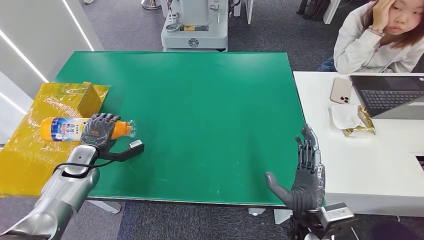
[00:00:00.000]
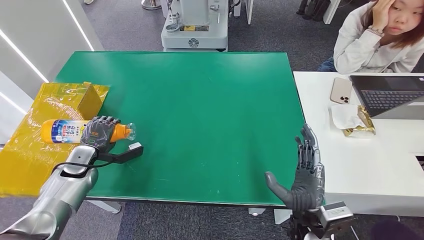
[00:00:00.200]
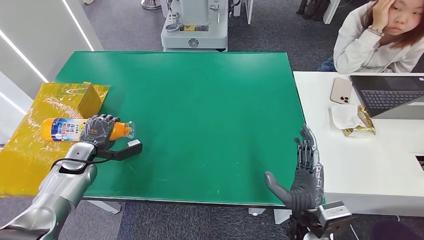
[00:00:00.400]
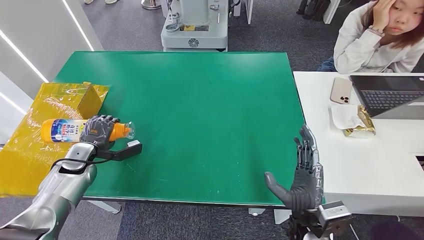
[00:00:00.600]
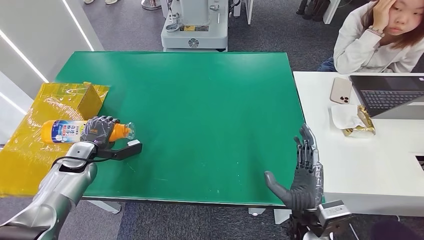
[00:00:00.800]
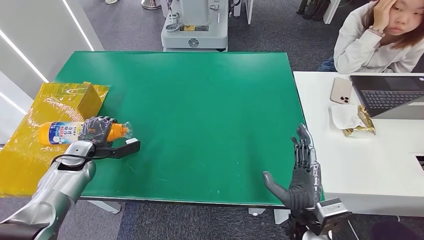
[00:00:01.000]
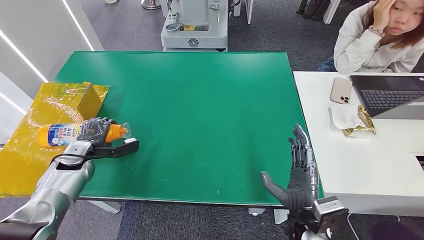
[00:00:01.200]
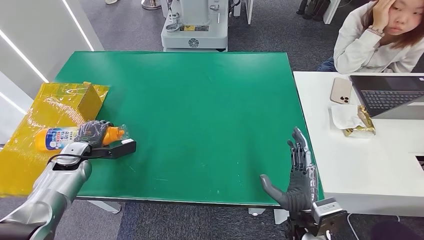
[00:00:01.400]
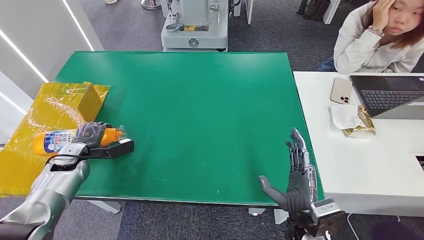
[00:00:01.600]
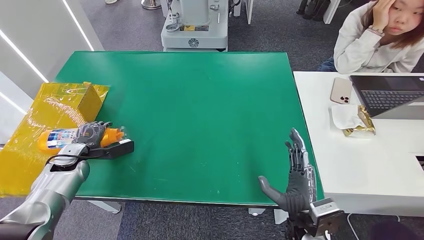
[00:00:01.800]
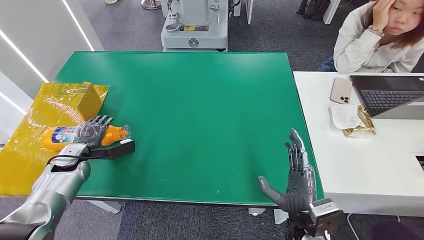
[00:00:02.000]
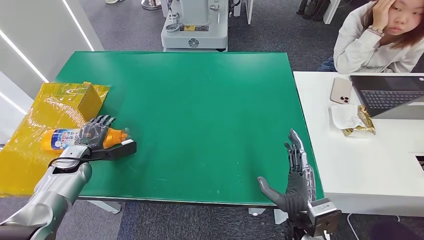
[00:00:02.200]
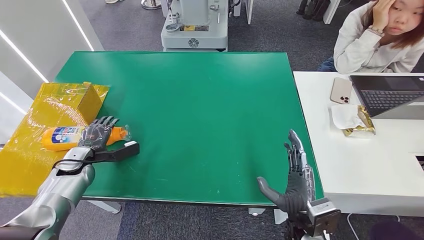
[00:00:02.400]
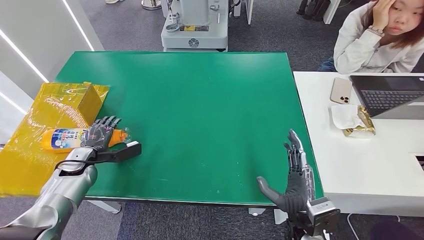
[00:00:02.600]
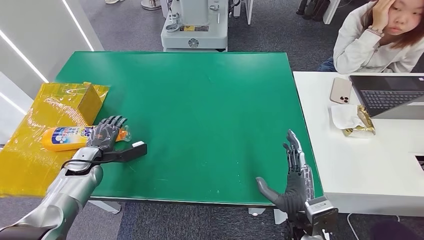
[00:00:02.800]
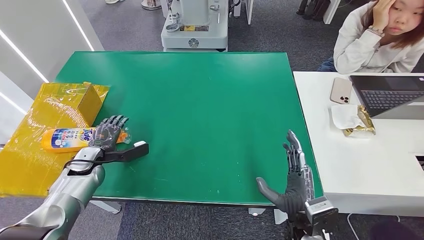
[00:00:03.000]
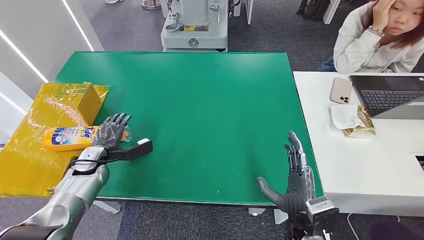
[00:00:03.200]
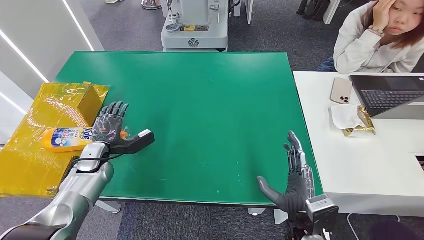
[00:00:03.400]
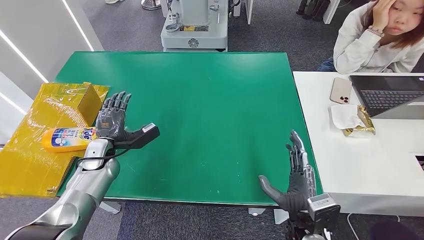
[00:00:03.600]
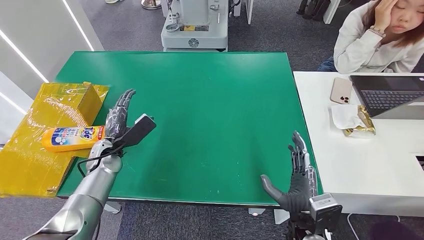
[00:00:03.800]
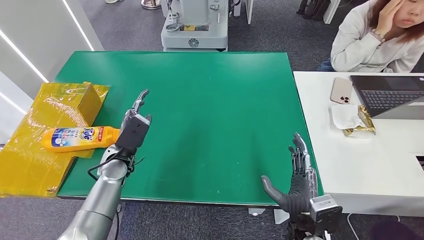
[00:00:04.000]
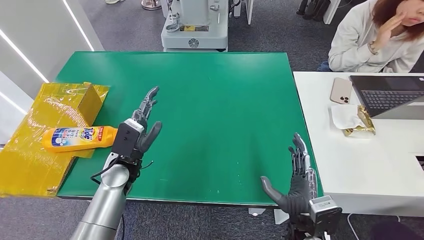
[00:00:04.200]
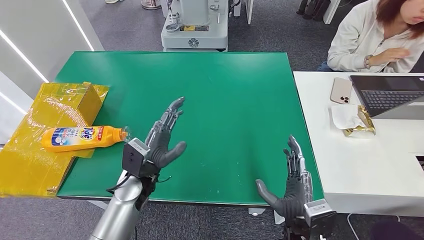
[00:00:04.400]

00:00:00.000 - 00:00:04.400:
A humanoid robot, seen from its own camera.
Step, 00:00:00.000 - 00:00:04.400: Turn the bottle to the front side.
00:00:00.000 - 00:00:01.400: The hands move only a little.
00:00:01.400 - 00:00:03.000: The hands make only small movements.
00:00:03.000 - 00:00:04.400: The left hand heads to the right, covering roughly 20 cm.
